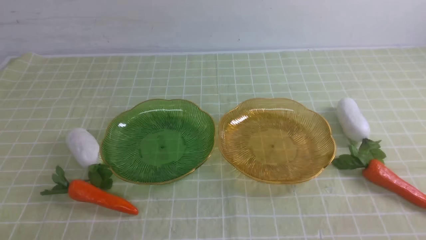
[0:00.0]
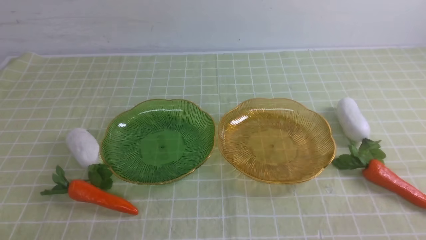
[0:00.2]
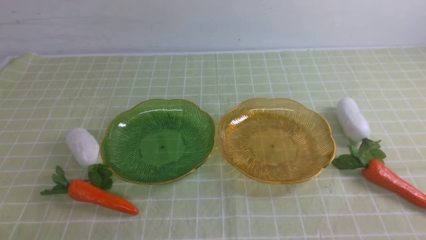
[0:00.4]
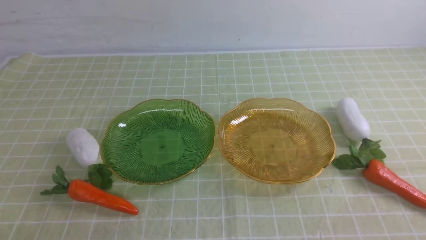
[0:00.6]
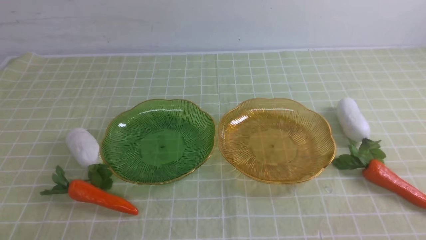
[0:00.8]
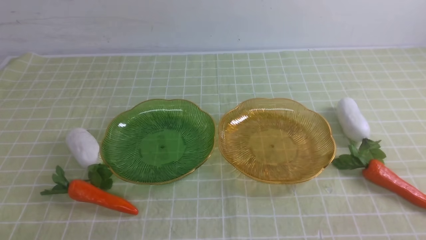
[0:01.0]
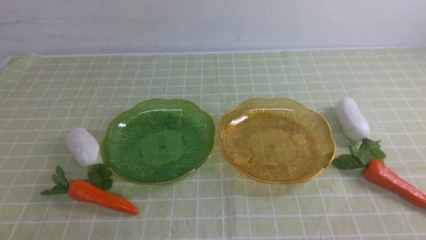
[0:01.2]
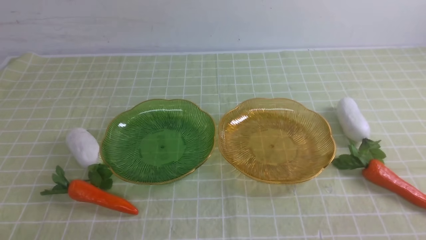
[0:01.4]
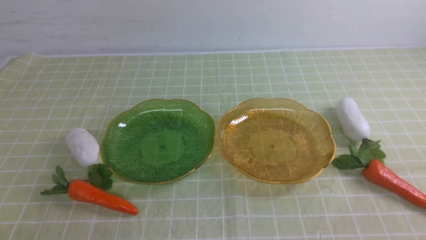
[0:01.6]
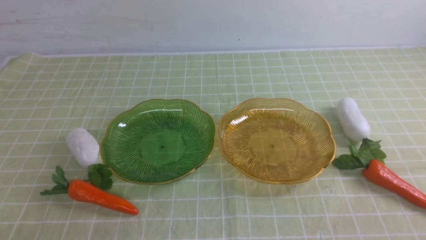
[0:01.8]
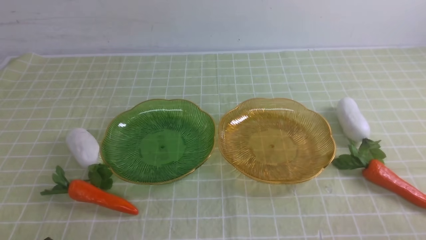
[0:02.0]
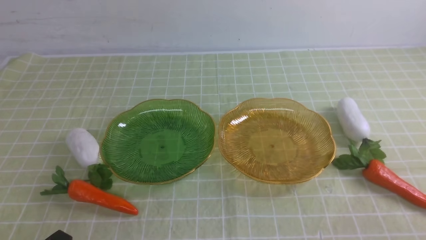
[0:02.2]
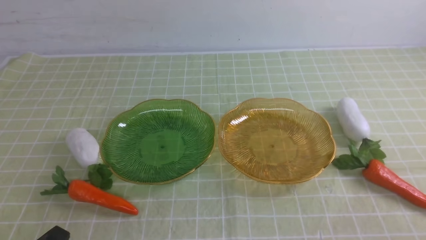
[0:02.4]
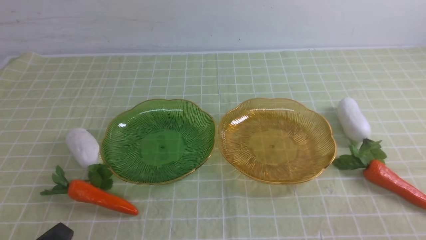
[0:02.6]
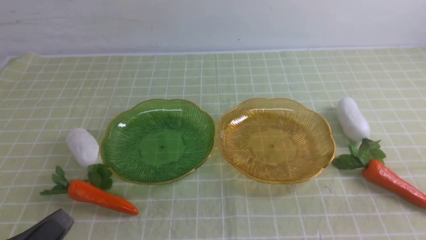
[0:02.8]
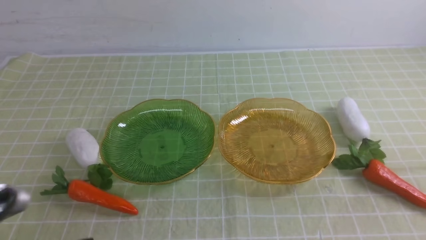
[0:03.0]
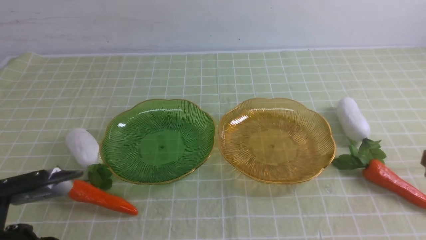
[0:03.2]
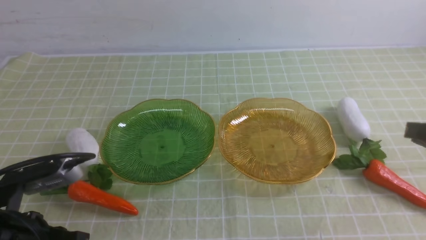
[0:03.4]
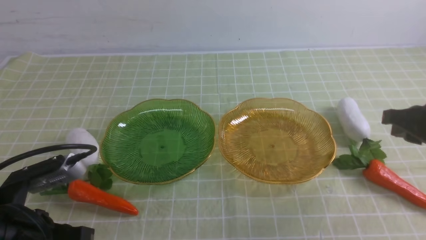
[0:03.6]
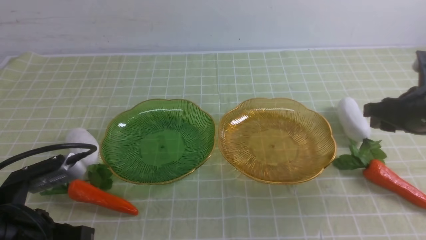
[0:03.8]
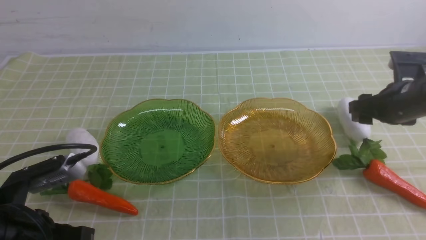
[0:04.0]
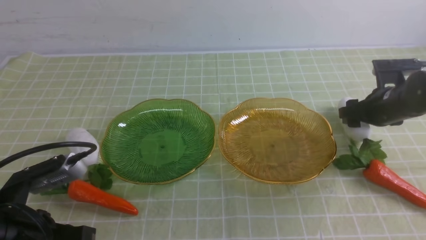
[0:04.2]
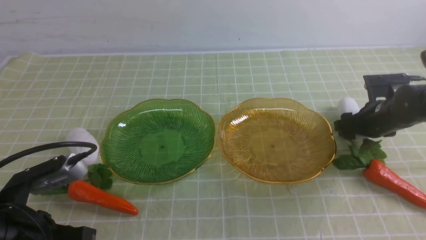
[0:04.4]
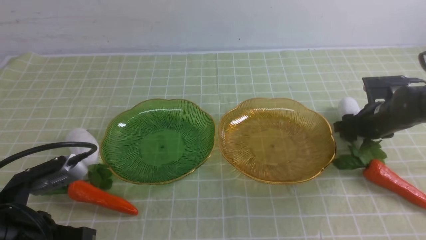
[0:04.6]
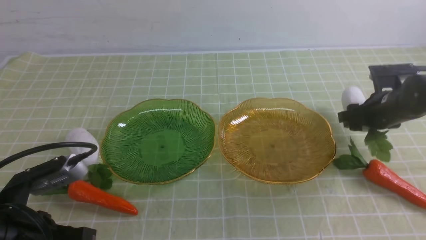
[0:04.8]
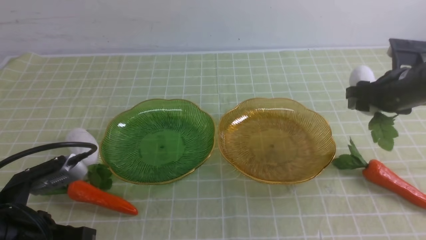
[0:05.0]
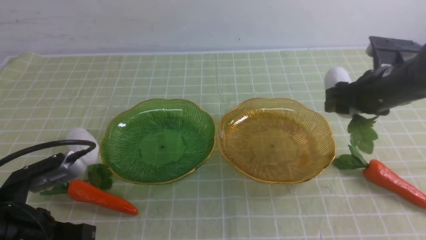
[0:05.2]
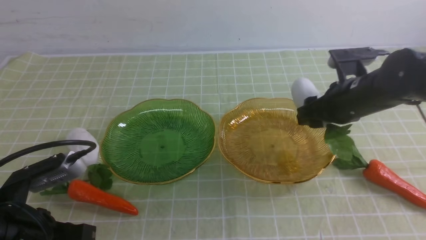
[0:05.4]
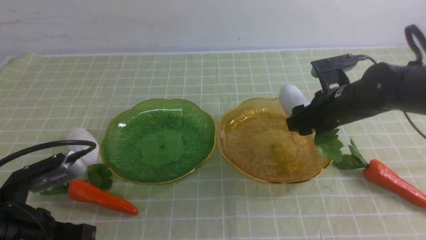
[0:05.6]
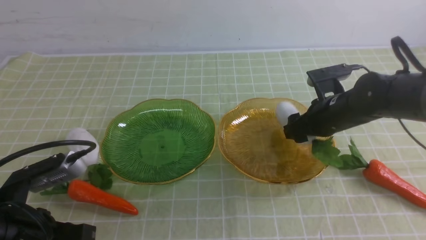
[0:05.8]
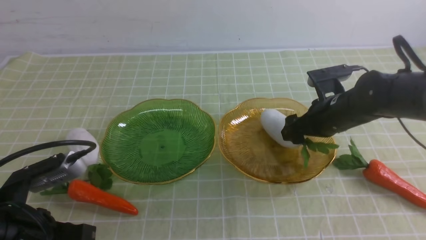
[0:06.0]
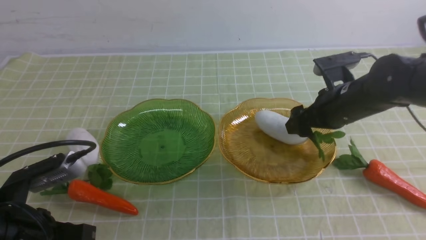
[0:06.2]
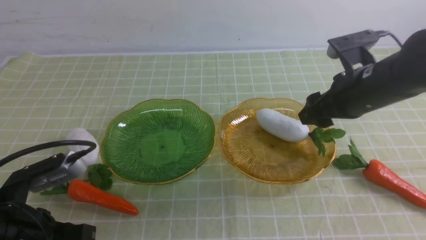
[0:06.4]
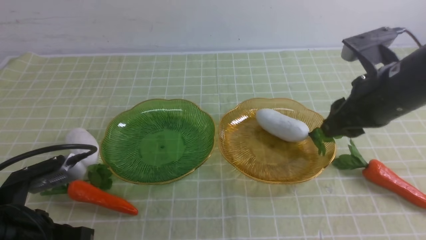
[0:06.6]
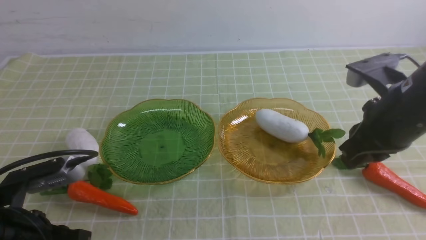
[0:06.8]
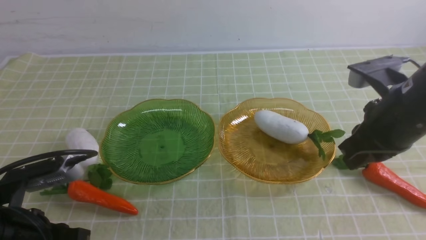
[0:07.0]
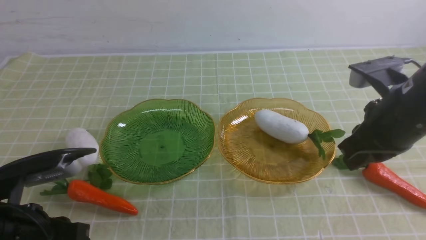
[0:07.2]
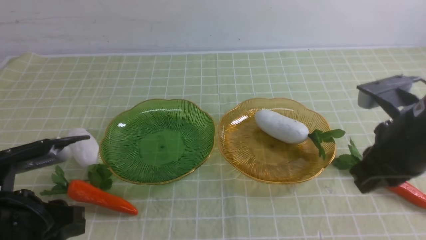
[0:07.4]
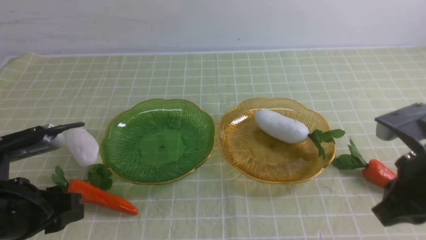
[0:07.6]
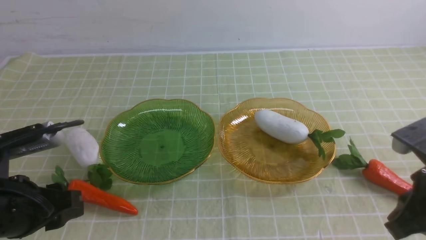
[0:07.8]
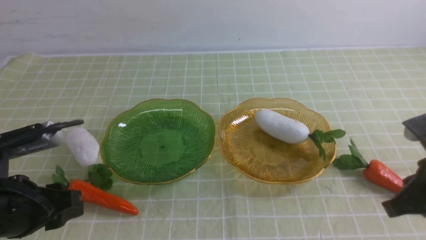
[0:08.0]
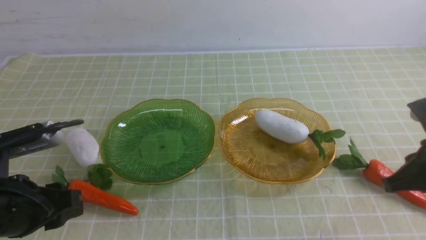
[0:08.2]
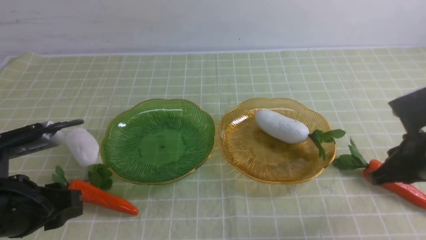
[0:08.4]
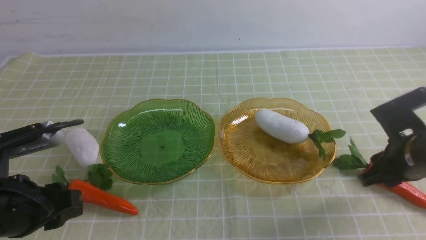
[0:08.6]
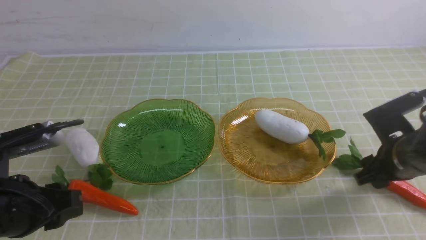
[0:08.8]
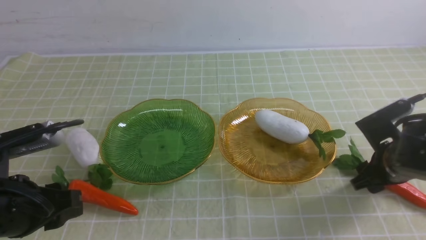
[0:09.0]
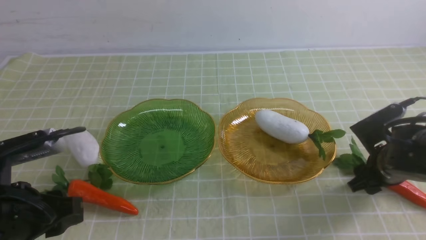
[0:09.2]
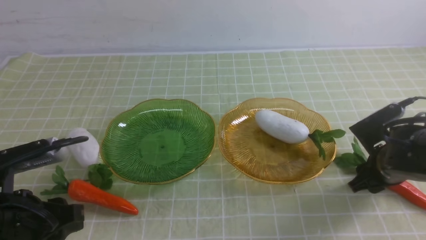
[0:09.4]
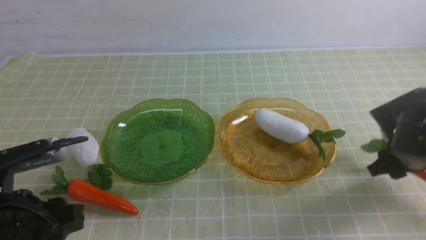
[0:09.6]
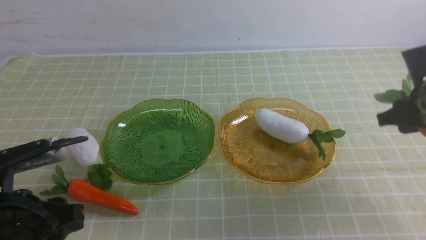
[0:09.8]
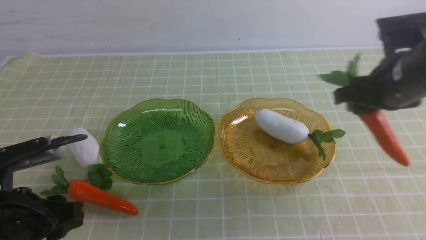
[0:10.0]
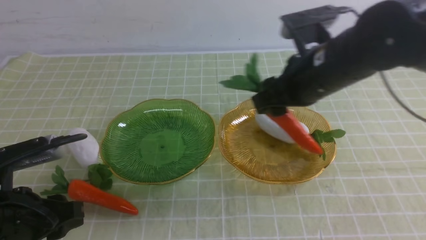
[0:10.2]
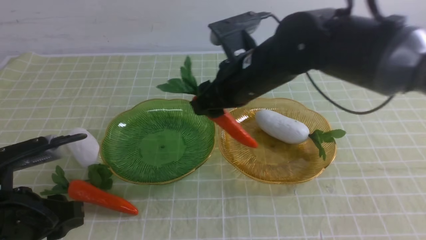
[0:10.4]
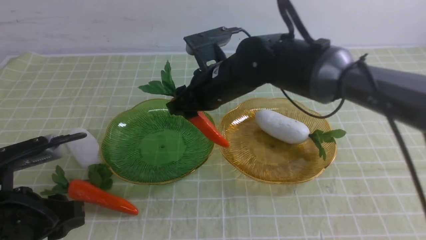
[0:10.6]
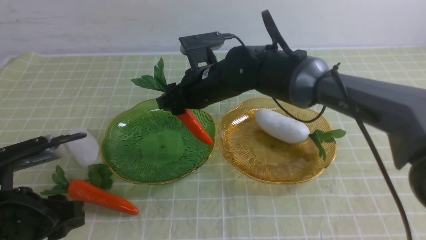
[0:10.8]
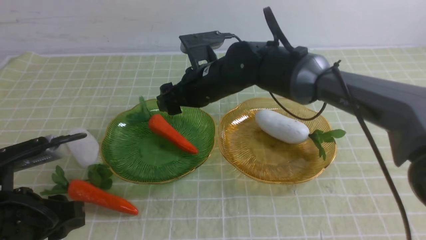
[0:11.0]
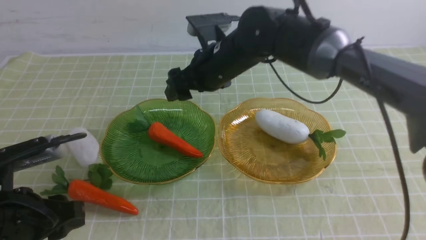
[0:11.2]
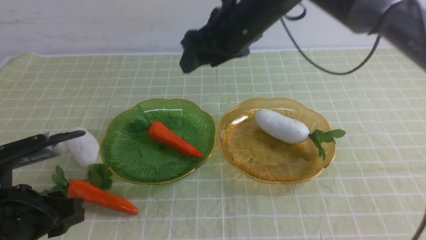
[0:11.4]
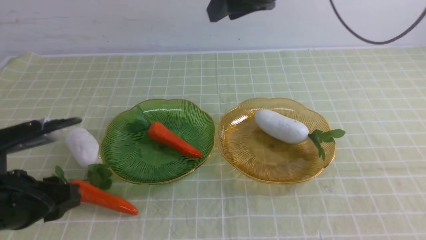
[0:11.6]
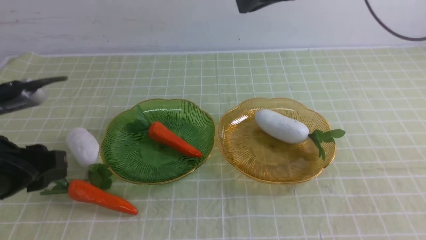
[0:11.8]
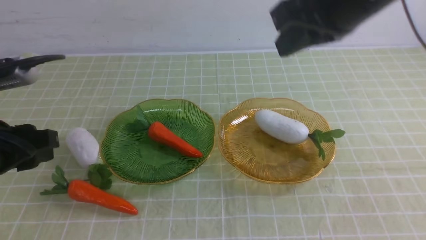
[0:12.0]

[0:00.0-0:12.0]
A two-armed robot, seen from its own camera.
Step, 0:00.0 to 0:06.4: use the right arm to grab a radish and put it into the right plate.
Step, 0:06.6 to 0:11.2: use the right arm to grab a carrot and put it into the left plate.
0:00.0 to 0:01.6: Both grippers stay put.
0:01.6 to 0:03.0: The left gripper is displaced upward by approximately 10 cm.
0:03.0 to 0:04.4: The right gripper heads forward and downward, covering some 30 cm, and opens.
0:04.4 to 0:06.0: The right gripper moves to the left and upward, roughly 10 cm.
0:06.0 to 0:07.6: The left gripper opens, while the right gripper travels backward and upward by some 20 cm, and closes its fingers.
0:07.6 to 0:09.0: The right gripper is displaced downward and forward by some 15 cm, and opens.
0:09.0 to 0:10.4: The right gripper goes approximately 25 cm to the left and upward.
0:10.4 to 0:12.0: The left gripper travels upward by approximately 5 cm, while the right gripper is displaced upward, to the right and backward by some 20 cm, and closes its fingers.

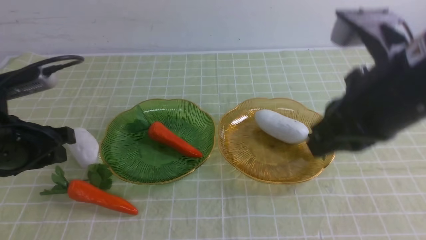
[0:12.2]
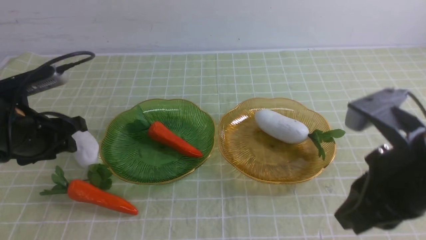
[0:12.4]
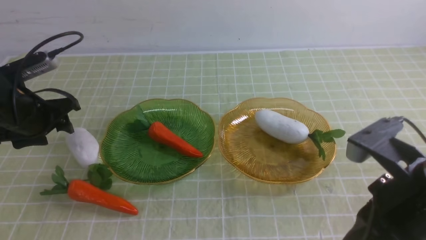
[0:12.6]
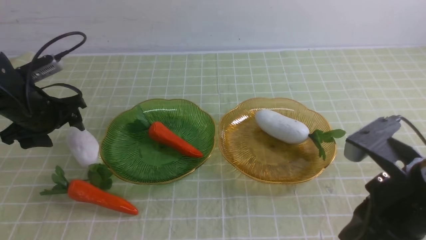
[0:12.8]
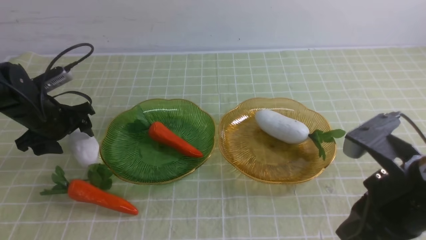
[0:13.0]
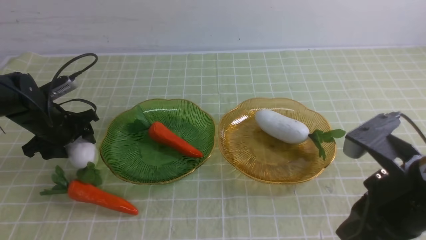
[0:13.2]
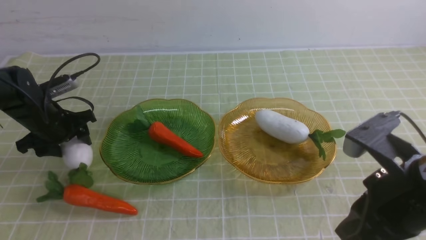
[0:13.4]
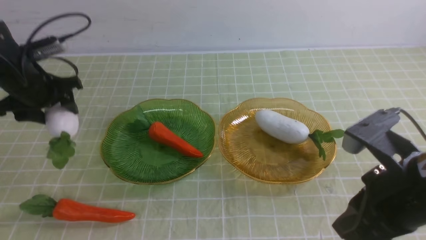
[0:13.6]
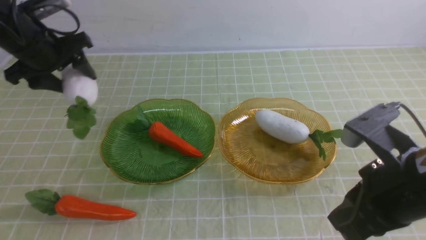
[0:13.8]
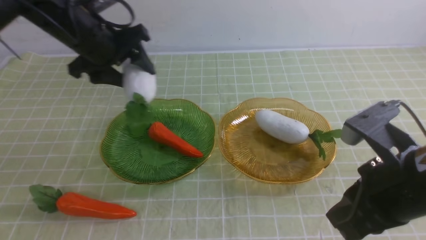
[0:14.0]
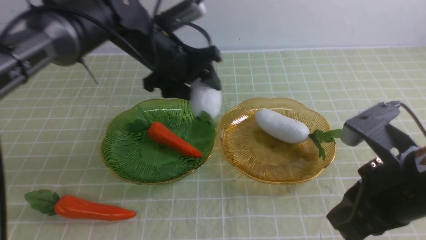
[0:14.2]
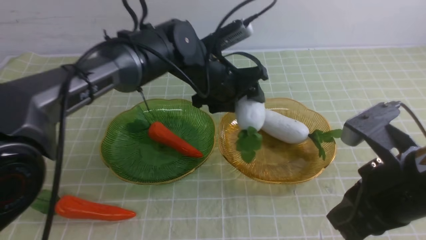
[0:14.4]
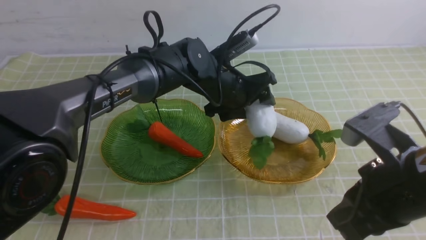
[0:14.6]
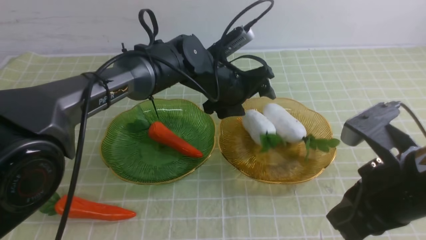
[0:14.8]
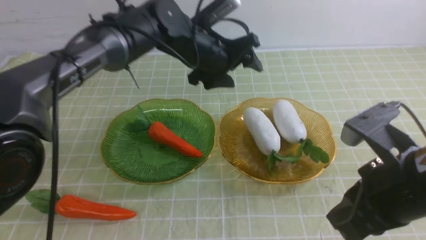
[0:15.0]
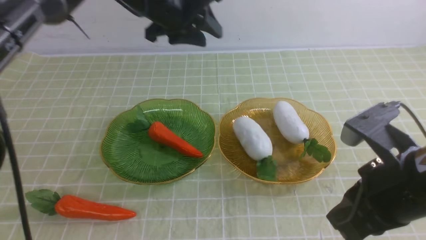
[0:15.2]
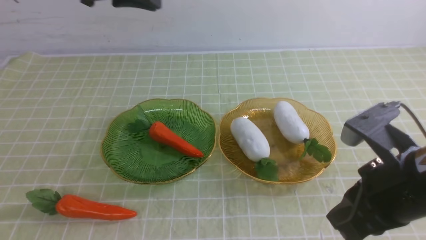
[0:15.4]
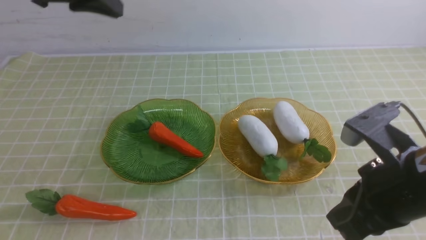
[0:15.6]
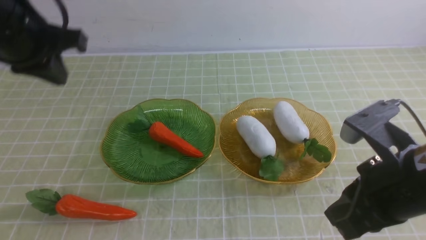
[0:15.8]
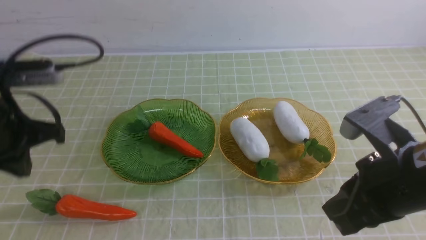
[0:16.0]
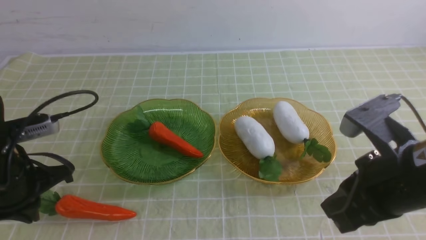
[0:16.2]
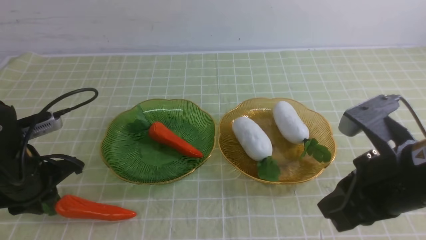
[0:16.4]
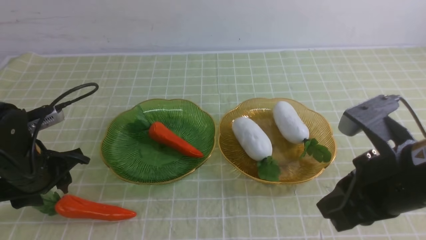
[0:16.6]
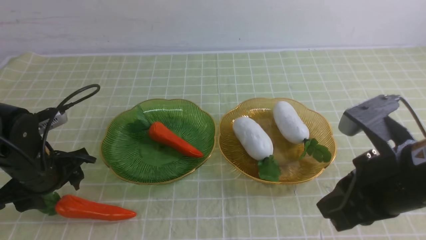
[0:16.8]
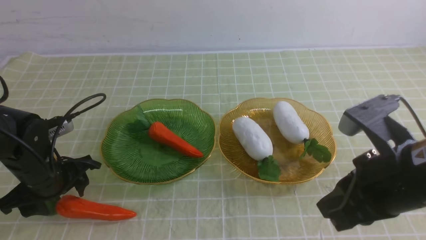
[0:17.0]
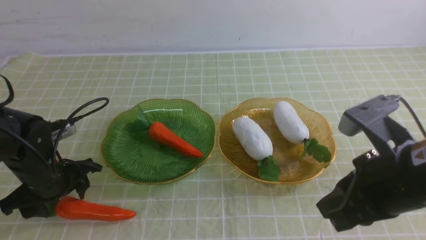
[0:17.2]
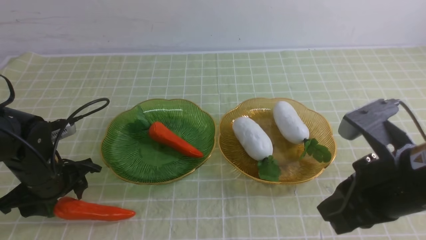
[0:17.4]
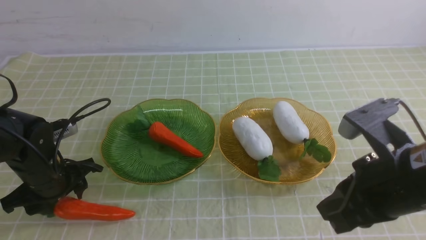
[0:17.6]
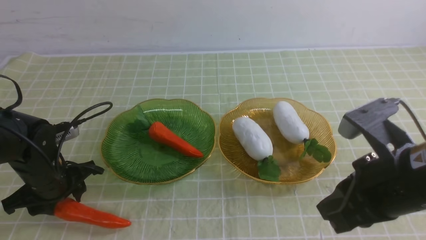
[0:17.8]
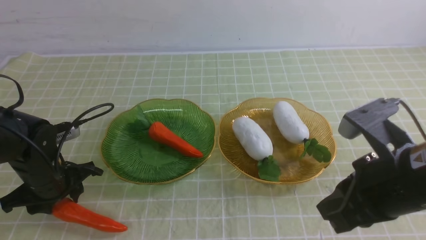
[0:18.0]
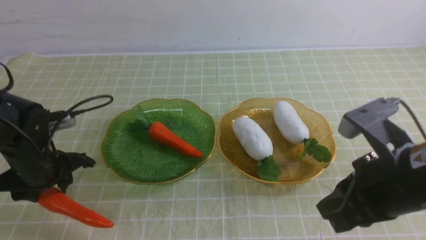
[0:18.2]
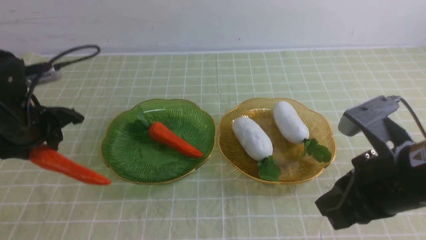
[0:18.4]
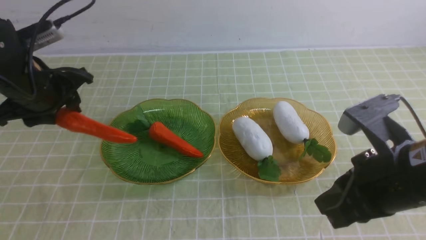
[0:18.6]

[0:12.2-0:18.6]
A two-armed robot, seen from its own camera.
Step, 0:12.2 to 0:15.0: use the left arm to grab a radish and put it into the right plate.
0:12.2 to 0:13.8: The right gripper travels downward by some 10 cm, while the left gripper shifts about 15 cm forward.
0:13.8 to 0:15.4: The left gripper is displaced upward by approximately 10 cm, goes to the right and returns, about 25 cm each way, and closes up.
0:15.4 to 0:17.0: The left gripper goes approximately 25 cm downward and backward, and opens its fingers.
0:17.0 to 0:18.6: The left gripper shifts roughly 10 cm upward and forward.
